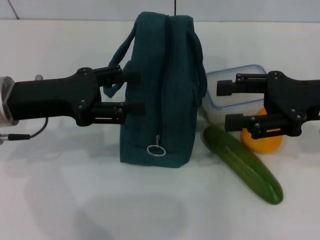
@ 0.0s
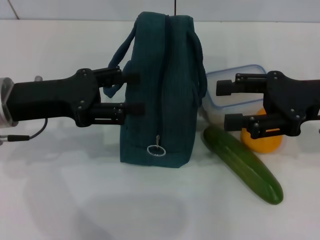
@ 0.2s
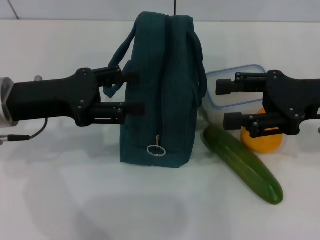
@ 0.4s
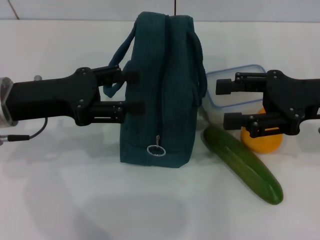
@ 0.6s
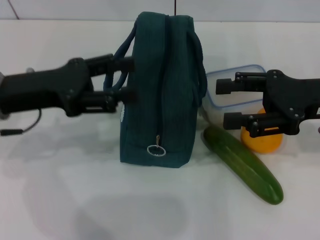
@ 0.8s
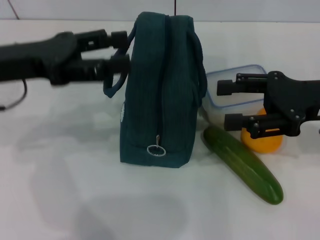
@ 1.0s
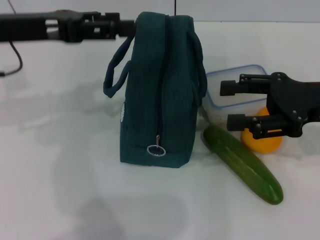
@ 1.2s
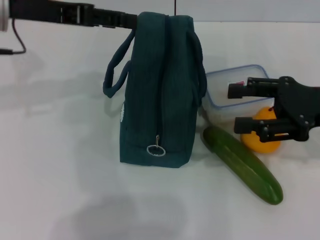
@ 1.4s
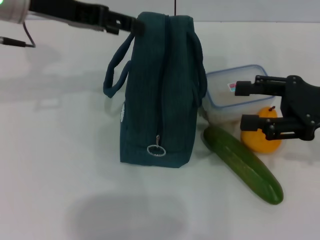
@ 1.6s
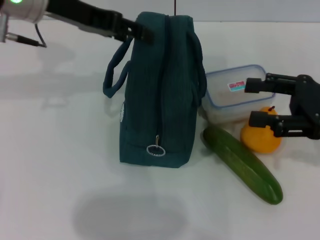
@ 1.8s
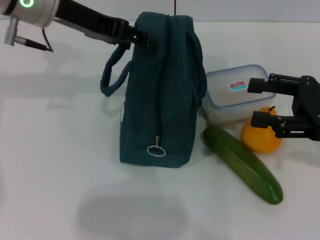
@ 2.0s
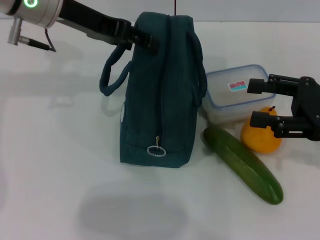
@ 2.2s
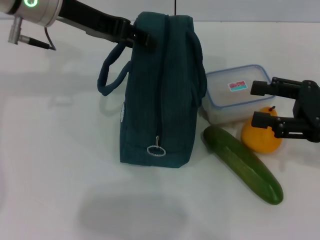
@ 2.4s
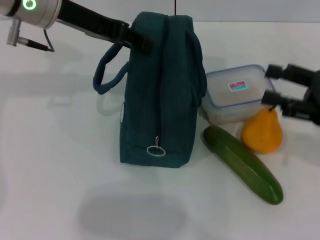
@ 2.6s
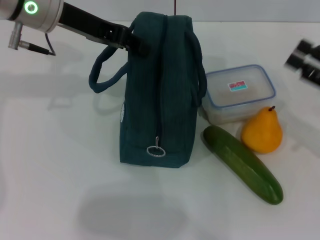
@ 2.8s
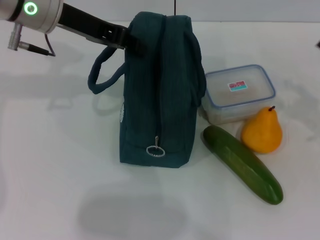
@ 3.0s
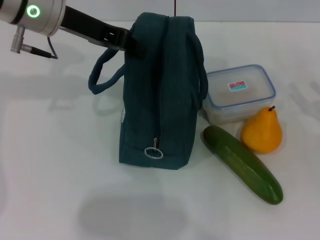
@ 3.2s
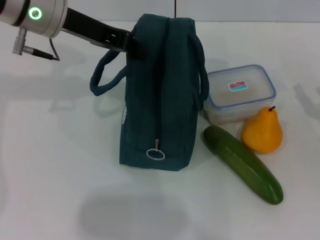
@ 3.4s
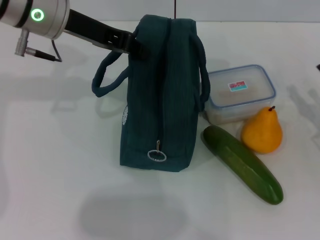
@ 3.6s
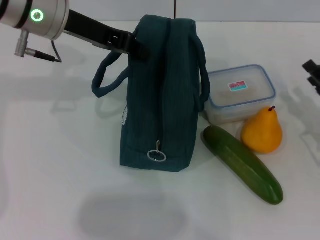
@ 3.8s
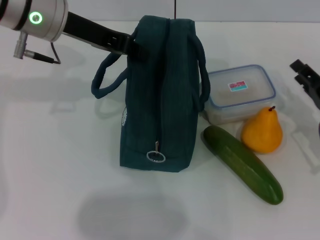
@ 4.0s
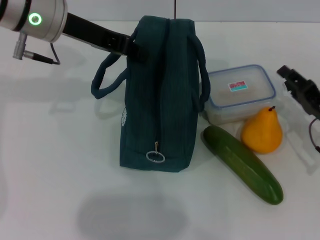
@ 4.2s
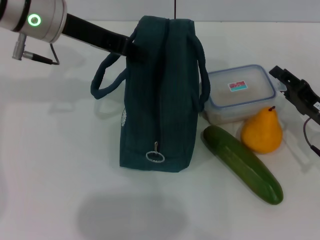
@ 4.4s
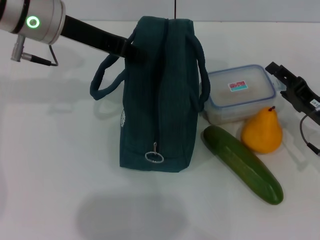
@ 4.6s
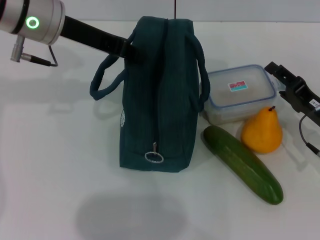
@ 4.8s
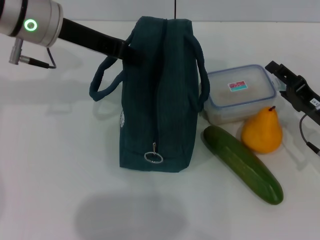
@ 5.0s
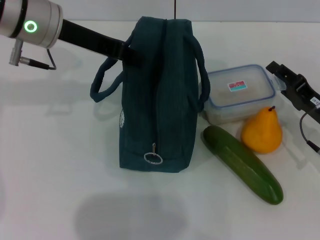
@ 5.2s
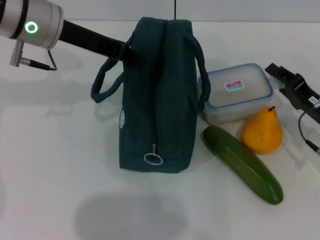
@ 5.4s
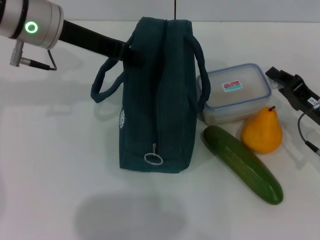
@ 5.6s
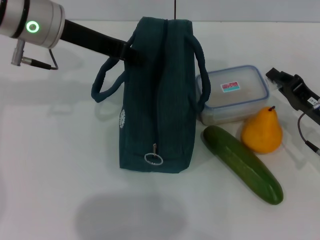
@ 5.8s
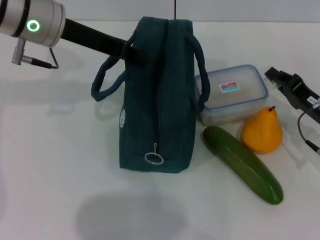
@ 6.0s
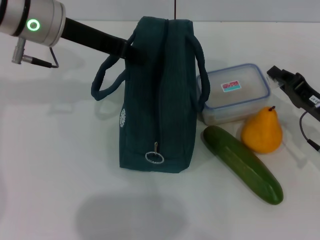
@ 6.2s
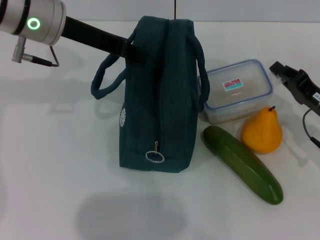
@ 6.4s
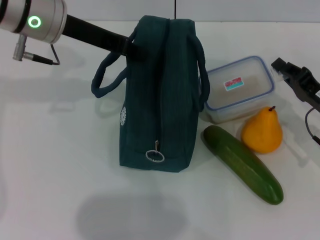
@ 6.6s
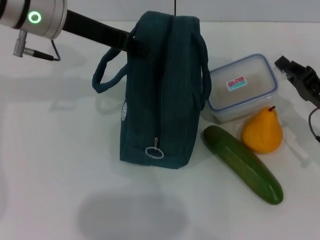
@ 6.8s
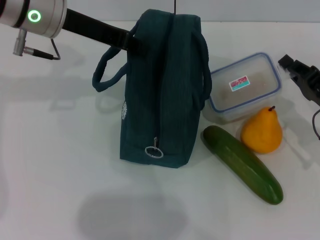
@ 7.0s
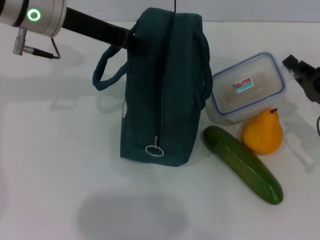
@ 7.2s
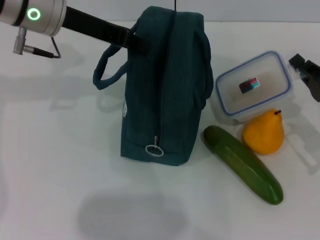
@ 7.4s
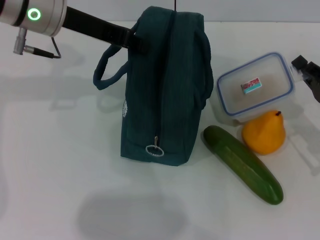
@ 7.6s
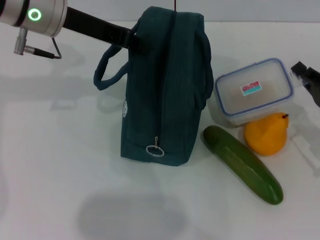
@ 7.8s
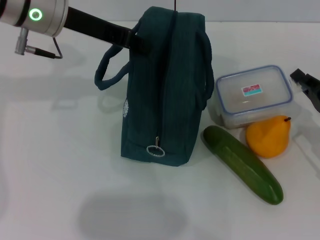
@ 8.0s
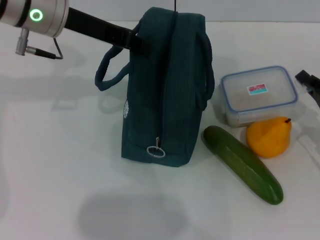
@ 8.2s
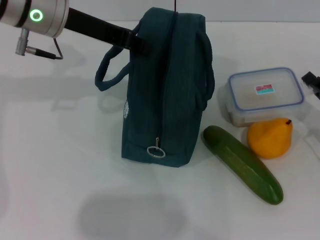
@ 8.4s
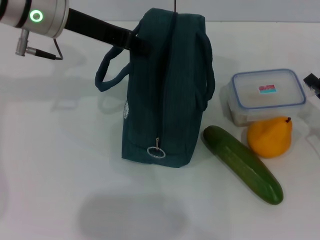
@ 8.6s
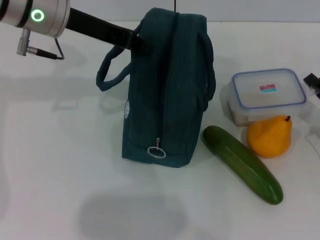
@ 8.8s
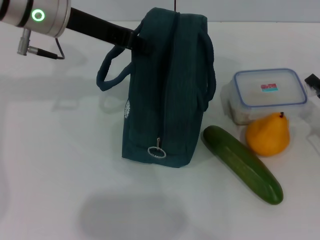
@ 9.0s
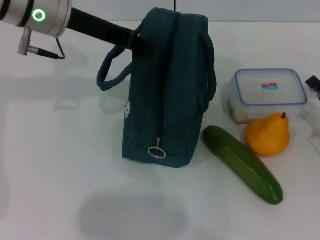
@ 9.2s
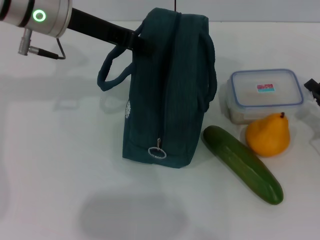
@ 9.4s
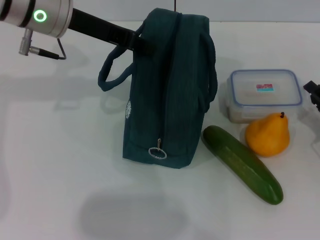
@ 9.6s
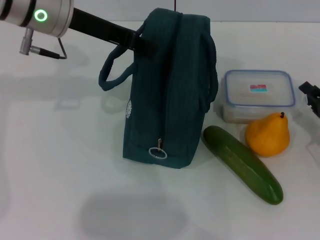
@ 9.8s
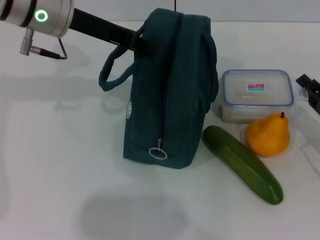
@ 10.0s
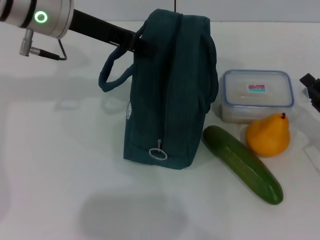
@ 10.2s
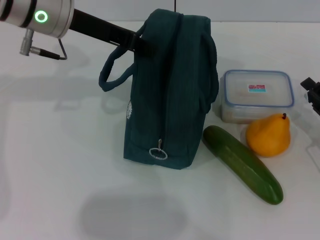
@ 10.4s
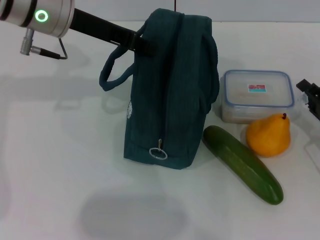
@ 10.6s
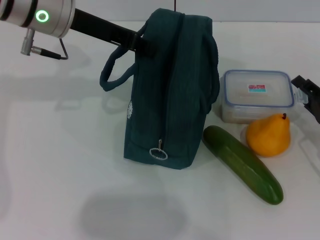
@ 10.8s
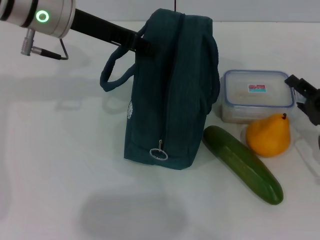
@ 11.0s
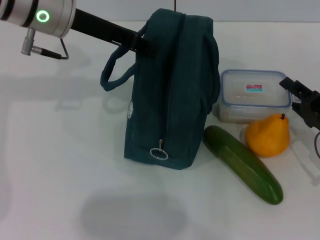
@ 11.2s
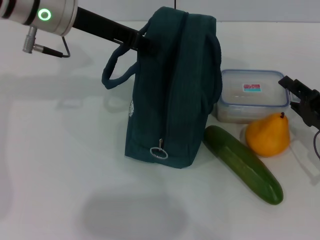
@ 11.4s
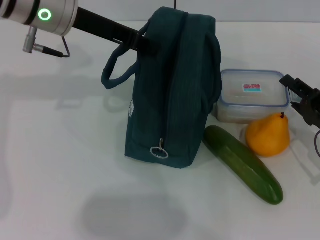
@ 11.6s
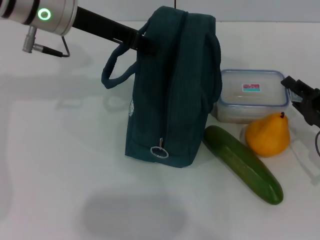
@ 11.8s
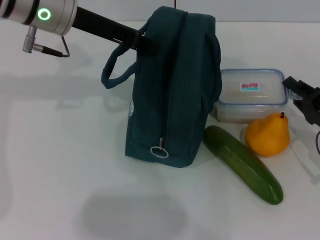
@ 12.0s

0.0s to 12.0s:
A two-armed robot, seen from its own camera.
Step, 0.0s to 3.4s: Hold the lunch bag with your left hand.
0.0s to 1.6s: The left gripper is displaced upward and forward by roughly 15 cm.
1.6s to 3.0s: The left gripper closes; the right gripper goes roughly 10 cm downward and to the right.
3.0s to 4.4s: The right gripper heads to the left and downward, covering roughly 10 cm, while the left gripper closes its fingers.
4.4s to 6.0s: The right gripper closes.
6.0s to 9.0s: There are only small adjustments of the grippers.
9.0s to 10.4s: The right gripper opens its fingers.
10.4s to 12.0s: There are only small adjustments of the grippers.

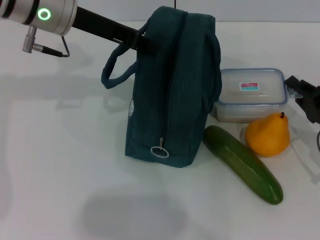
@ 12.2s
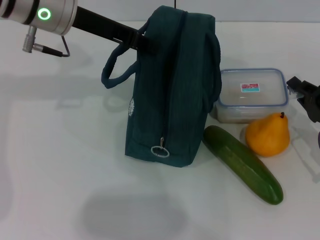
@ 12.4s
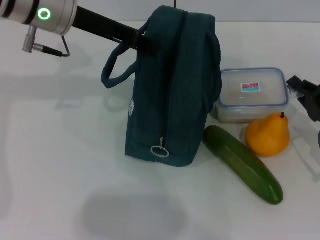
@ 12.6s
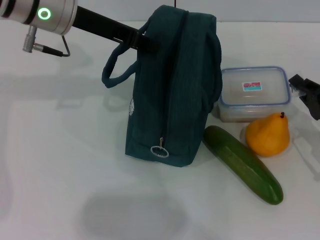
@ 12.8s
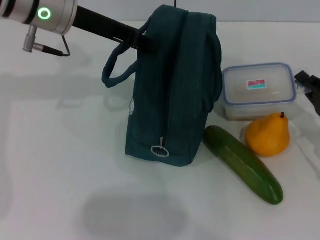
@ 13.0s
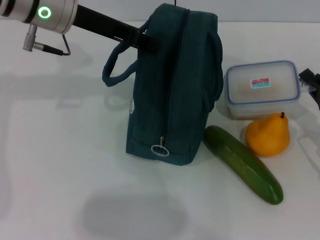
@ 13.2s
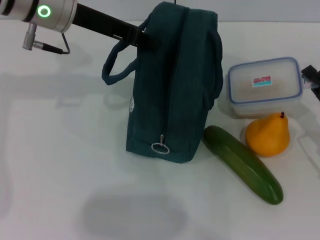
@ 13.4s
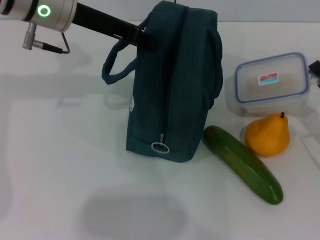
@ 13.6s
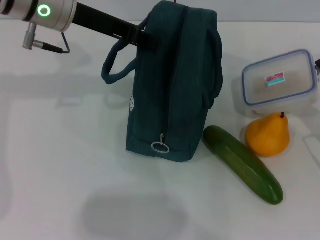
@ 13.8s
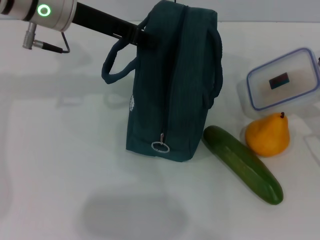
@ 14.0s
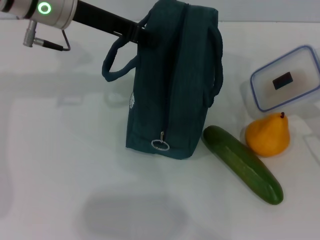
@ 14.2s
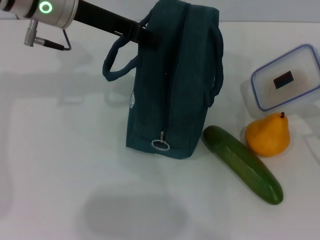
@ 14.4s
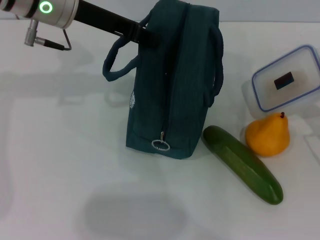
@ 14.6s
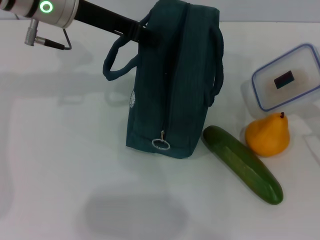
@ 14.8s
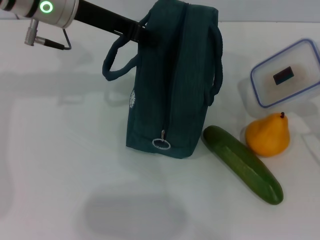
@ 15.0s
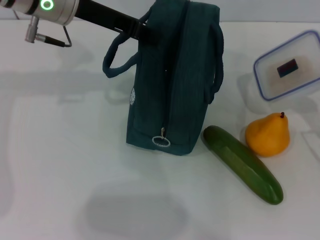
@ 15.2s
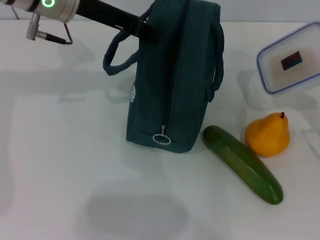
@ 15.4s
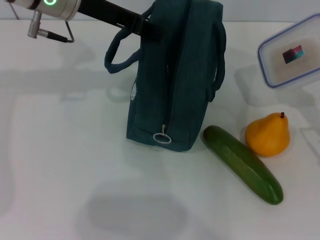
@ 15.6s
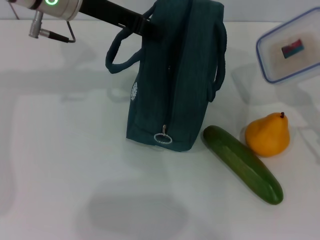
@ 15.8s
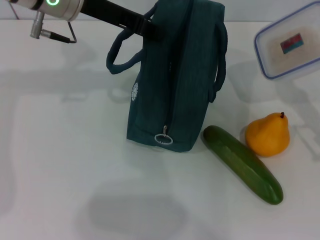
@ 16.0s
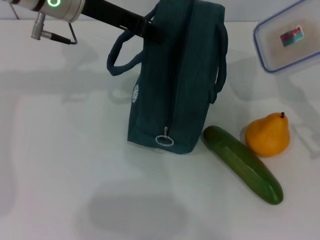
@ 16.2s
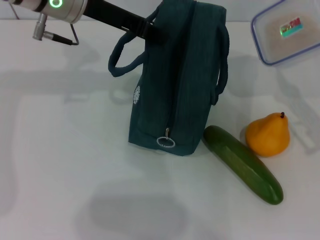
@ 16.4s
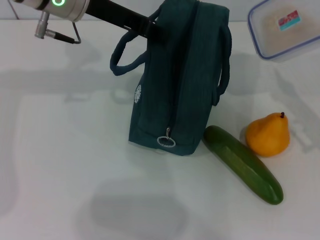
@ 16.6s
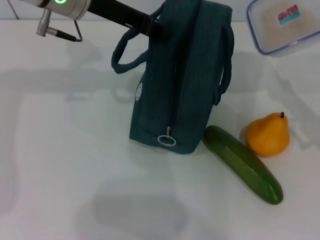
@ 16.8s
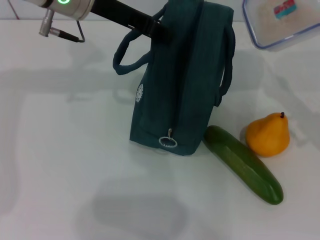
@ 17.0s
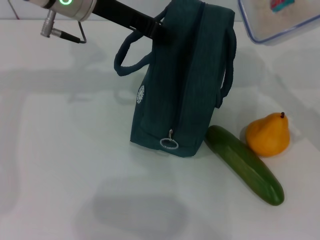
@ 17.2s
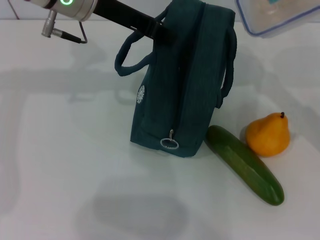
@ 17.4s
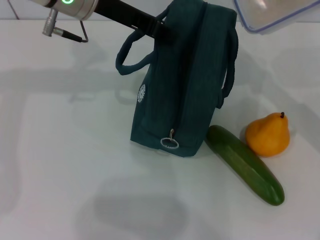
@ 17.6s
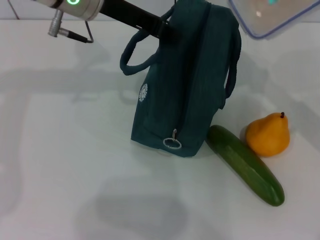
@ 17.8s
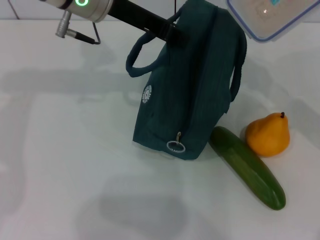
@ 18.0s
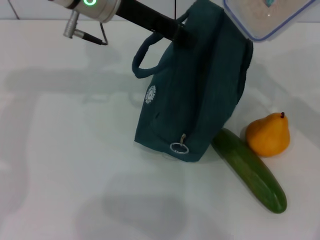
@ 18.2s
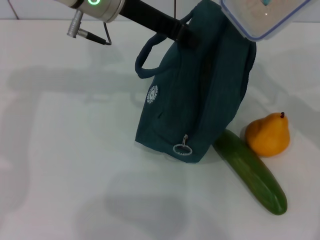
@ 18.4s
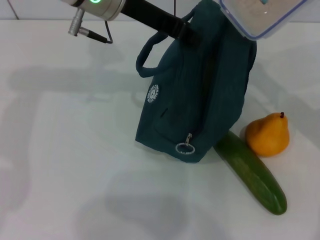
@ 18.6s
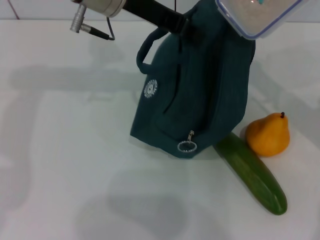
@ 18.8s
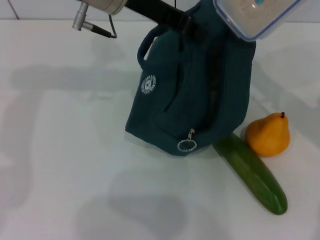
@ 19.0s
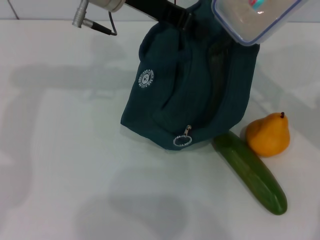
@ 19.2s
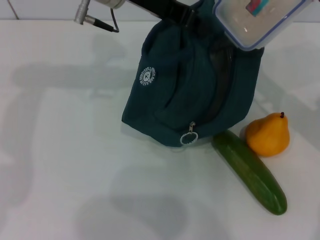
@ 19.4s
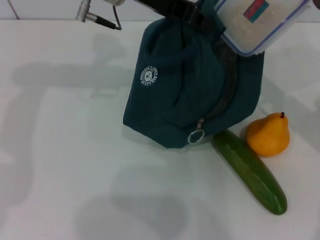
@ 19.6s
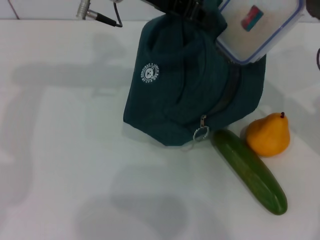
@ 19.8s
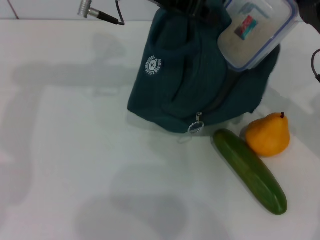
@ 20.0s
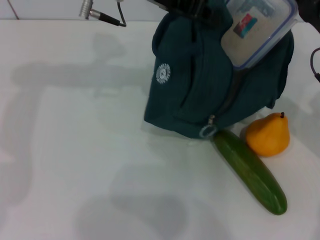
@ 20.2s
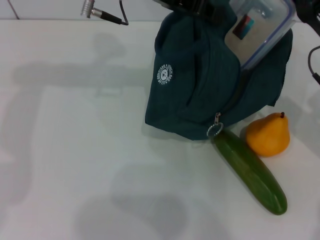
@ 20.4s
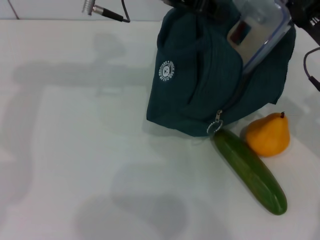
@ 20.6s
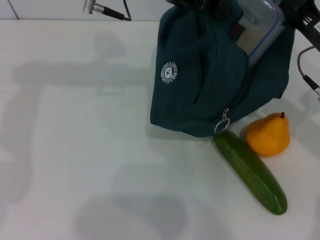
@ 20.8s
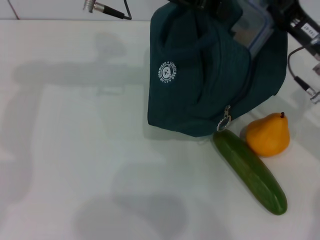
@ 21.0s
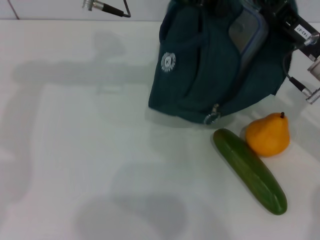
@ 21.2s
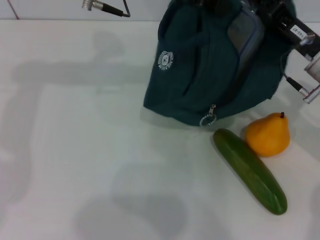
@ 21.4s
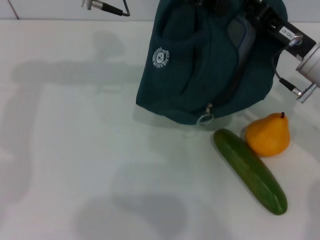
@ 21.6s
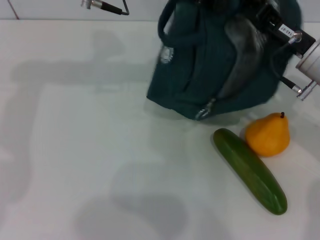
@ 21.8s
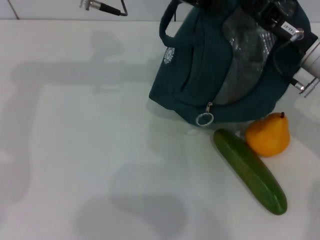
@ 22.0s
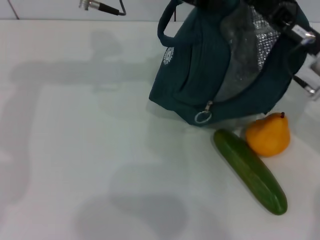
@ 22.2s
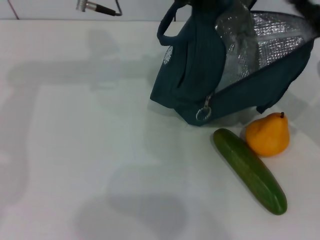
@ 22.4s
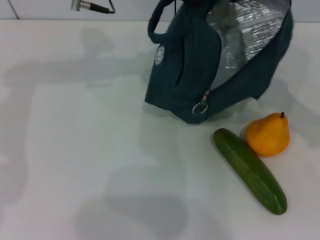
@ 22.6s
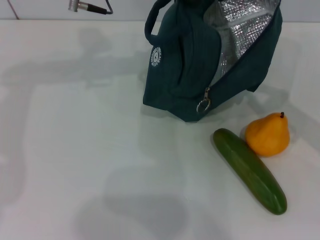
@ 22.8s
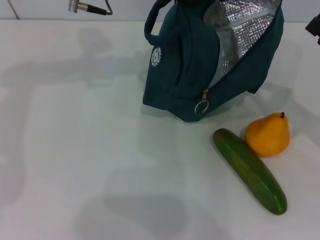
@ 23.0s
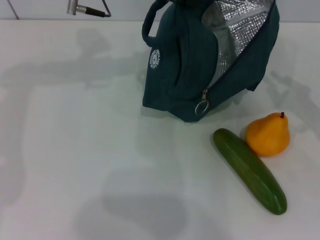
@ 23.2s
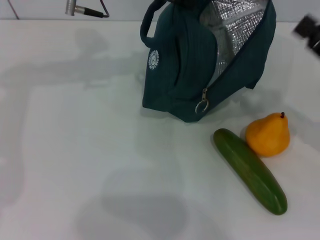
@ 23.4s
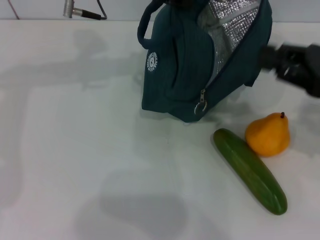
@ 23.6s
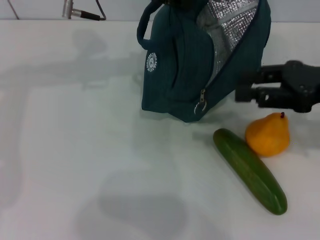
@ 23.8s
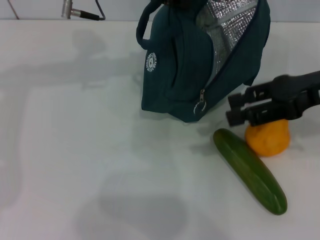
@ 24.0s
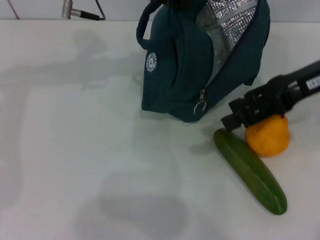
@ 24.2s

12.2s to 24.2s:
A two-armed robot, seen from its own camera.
Step, 13.4s to 22.0s: Place the lunch box into the lunch bag with your right hand.
12.2s to 15.2s: There are only small adjustments of the grippers.
15.2s to 16.6s: The right gripper shifts by some 5 cm.
16.6s to 18.2s: The right gripper shifts by roughly 5 cm.
18.2s to 21.2s: There are only small adjustments of the grippers.
21.2s to 22.6s: The right gripper is displaced to the right and backward by approximately 10 cm.
22.6s to 24.2s: The right gripper moves upward and to the left, approximately 15 cm, and opens up.
